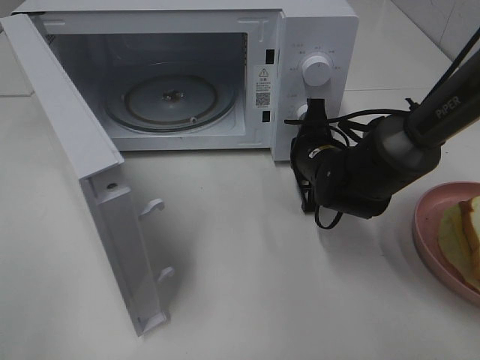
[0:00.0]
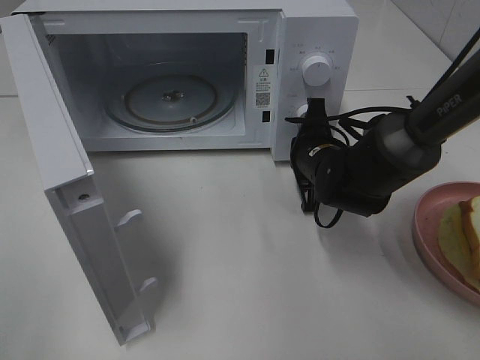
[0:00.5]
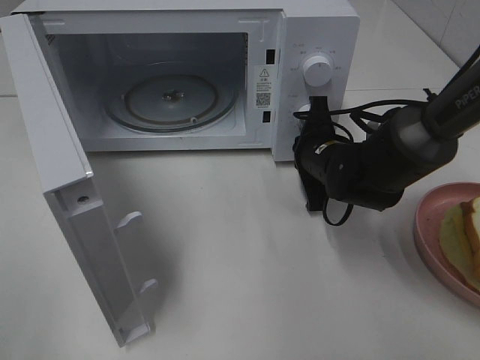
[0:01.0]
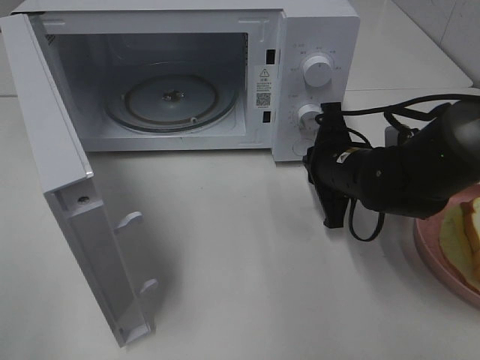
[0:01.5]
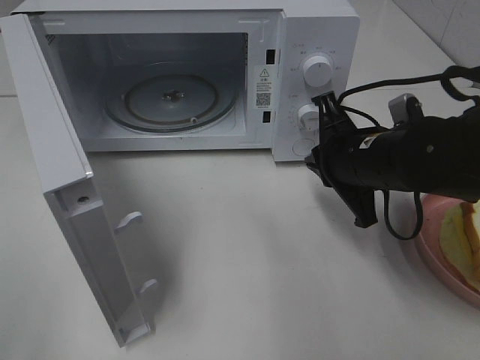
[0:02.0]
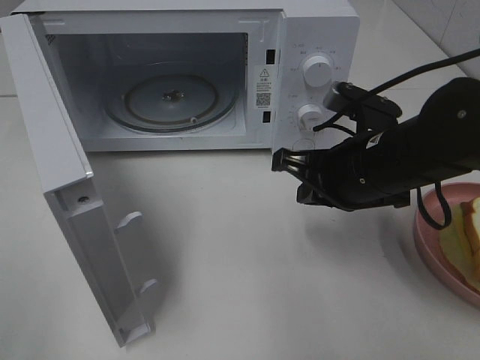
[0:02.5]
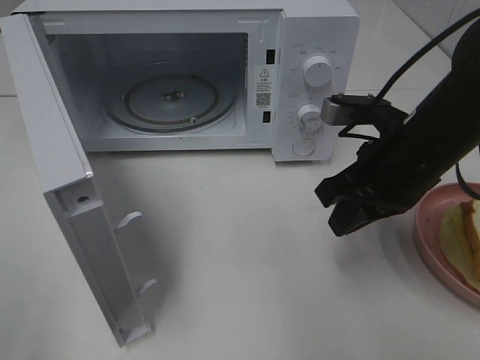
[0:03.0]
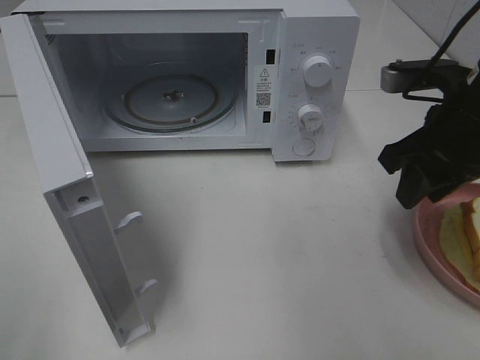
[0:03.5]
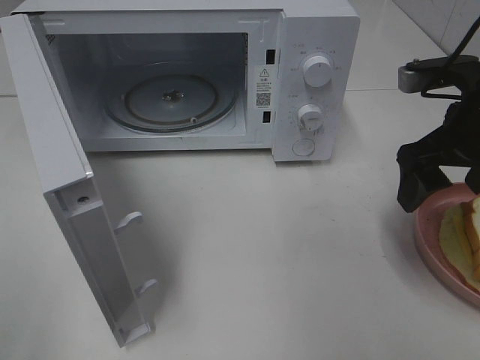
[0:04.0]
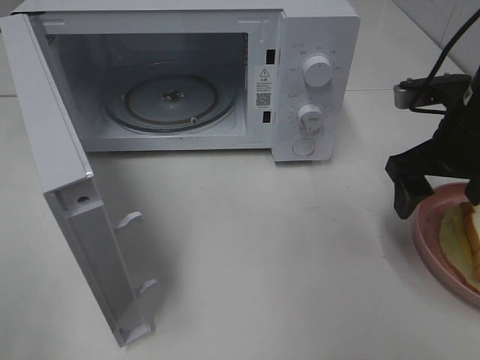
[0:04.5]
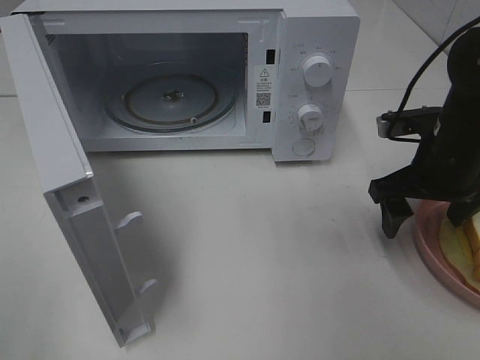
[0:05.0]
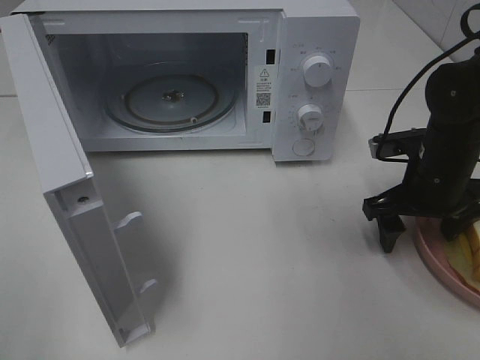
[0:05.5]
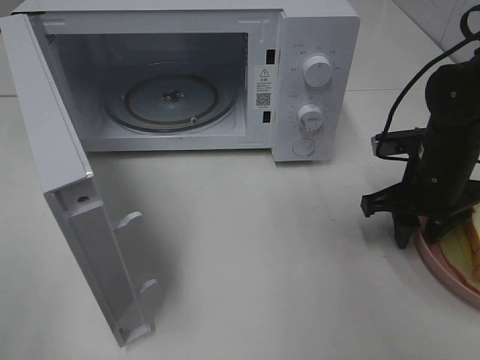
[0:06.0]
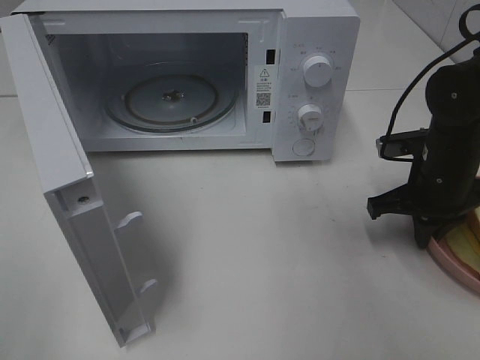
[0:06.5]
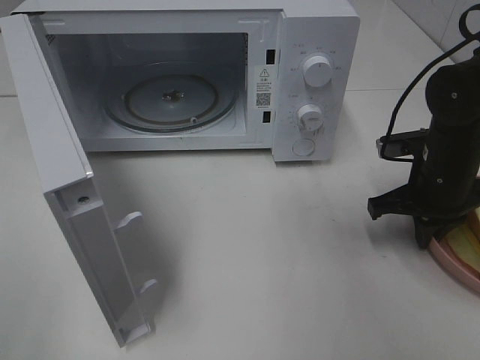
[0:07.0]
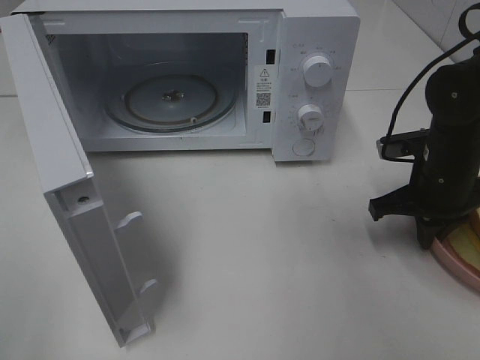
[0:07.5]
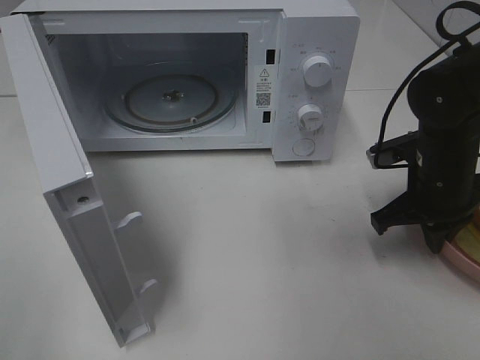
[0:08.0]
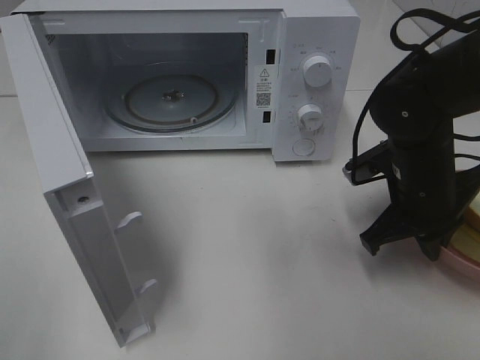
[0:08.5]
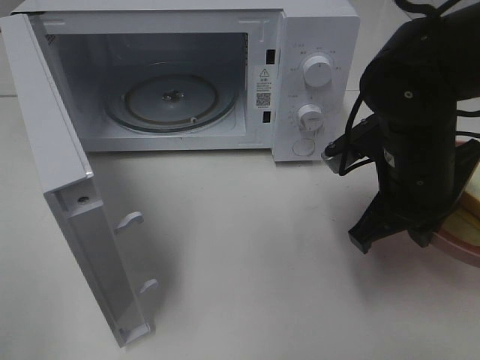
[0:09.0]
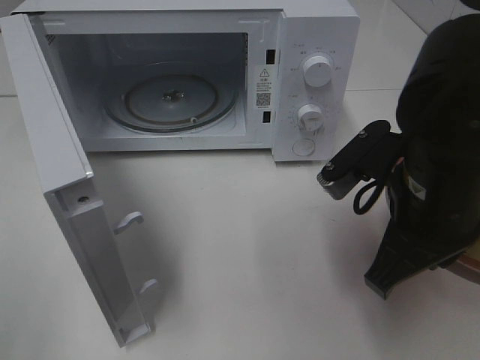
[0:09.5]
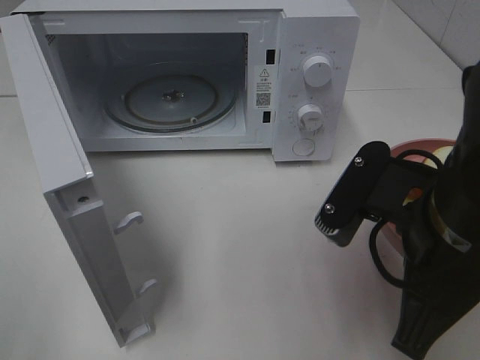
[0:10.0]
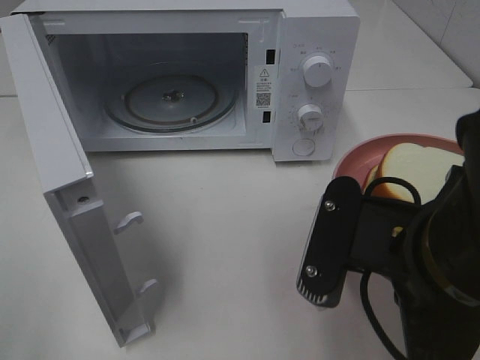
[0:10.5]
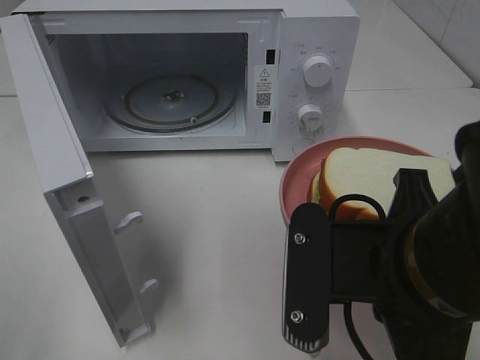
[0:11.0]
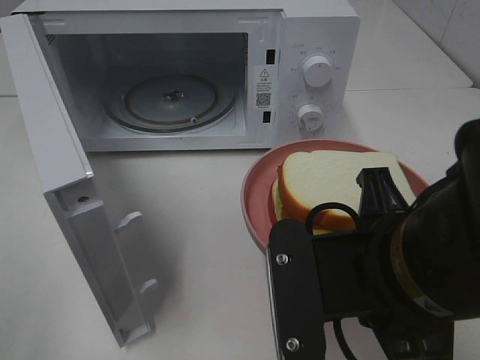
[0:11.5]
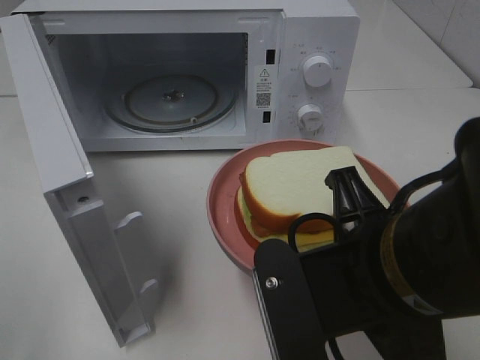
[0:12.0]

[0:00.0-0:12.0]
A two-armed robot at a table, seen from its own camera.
Task of the whole recording: Heat Sandwich.
Step, 0:02.0 to 0:06.0: Right hand: grab the plate with the sandwich.
0:00.0 to 0:02.0: The right gripper travels backward and upward by approximately 10 cm.
0:02.0 to 0:04.0: The right gripper shifts some 10 cm to the right and upward, and opens its fingers.
0:04.0 to 0:06.0: The right gripper travels downward by roughly 10 cm, and closes up.
0:06.0 to 0:08.0: The right gripper closes up.
0:08.0 to 0:10.0: The right gripper heads backward, upward and to the left, covering roughly 20 cm.
0:10.0 to 0:12.0: The right gripper shifts by roughly 5 cm.

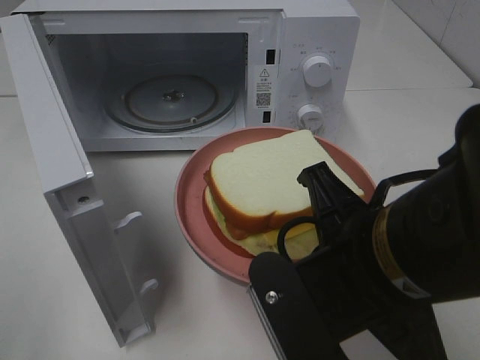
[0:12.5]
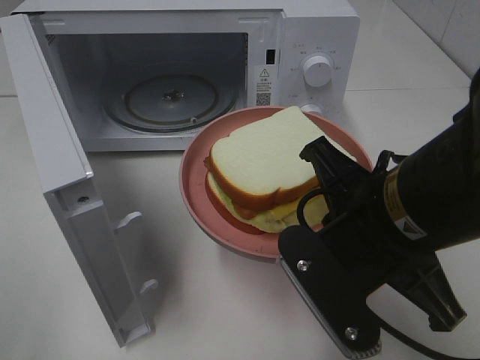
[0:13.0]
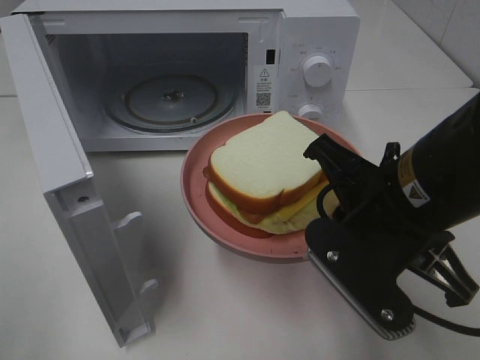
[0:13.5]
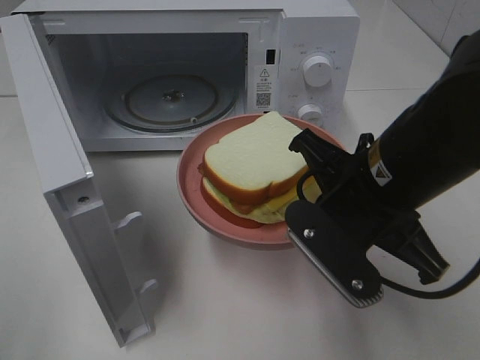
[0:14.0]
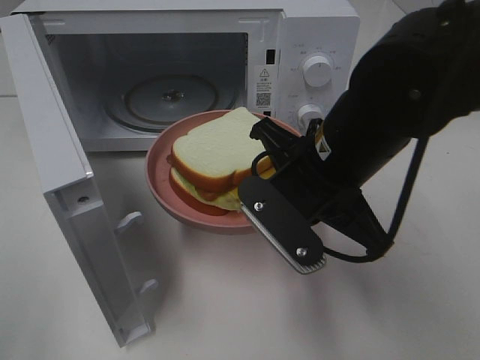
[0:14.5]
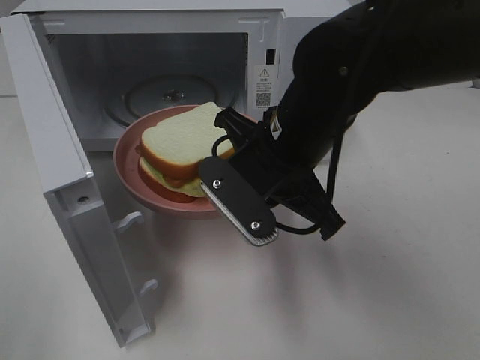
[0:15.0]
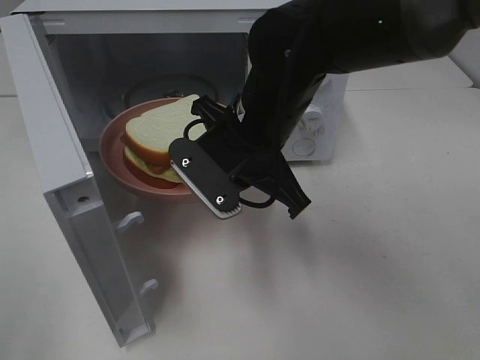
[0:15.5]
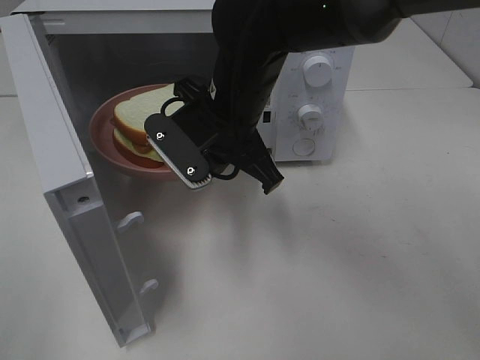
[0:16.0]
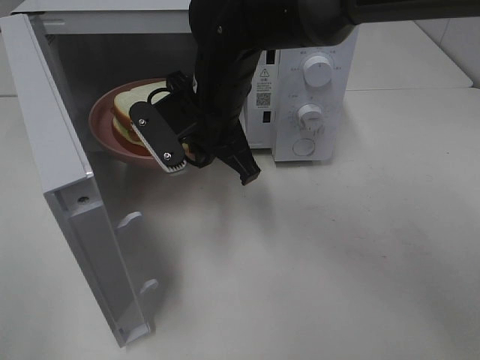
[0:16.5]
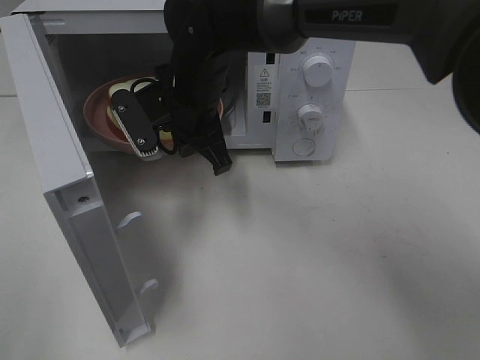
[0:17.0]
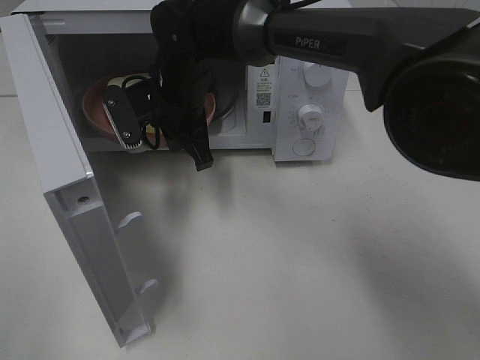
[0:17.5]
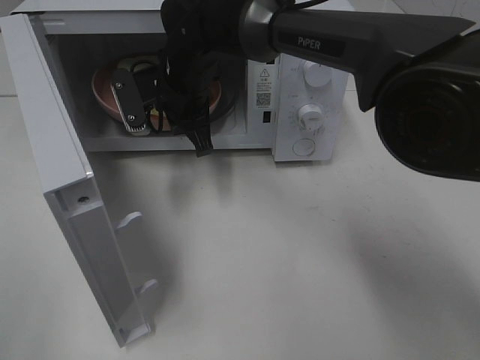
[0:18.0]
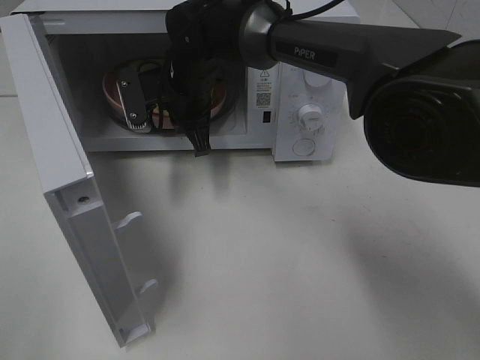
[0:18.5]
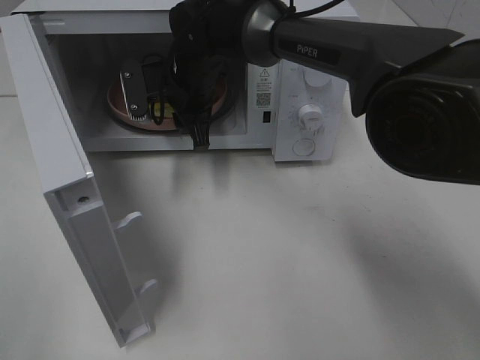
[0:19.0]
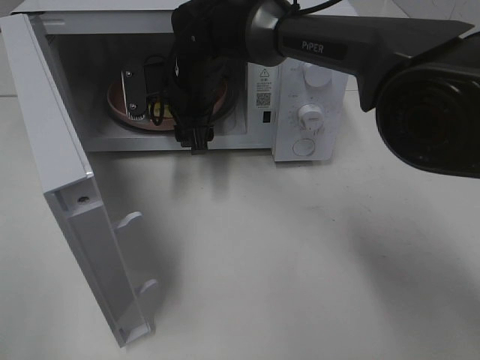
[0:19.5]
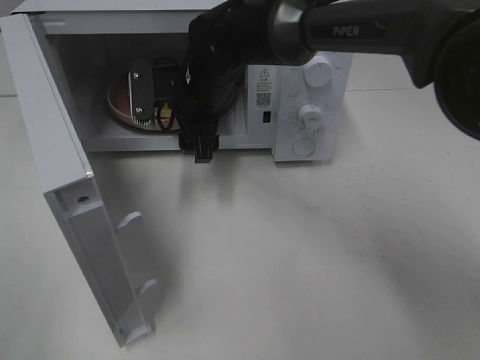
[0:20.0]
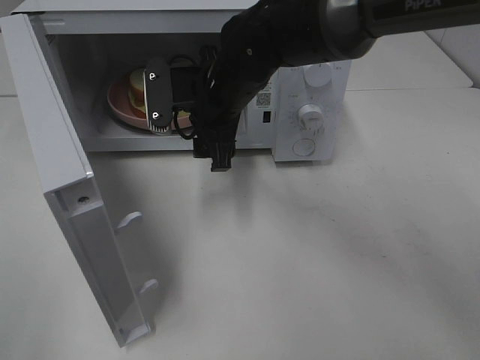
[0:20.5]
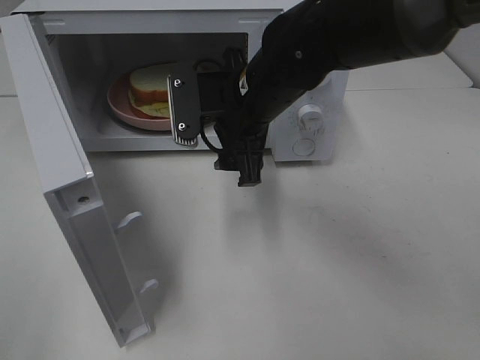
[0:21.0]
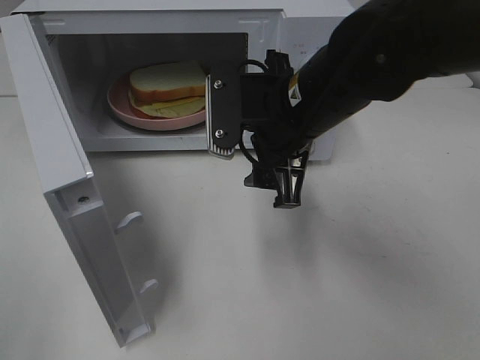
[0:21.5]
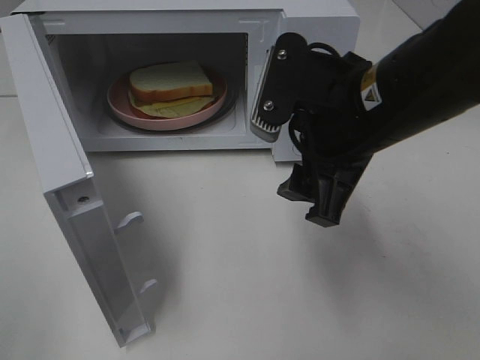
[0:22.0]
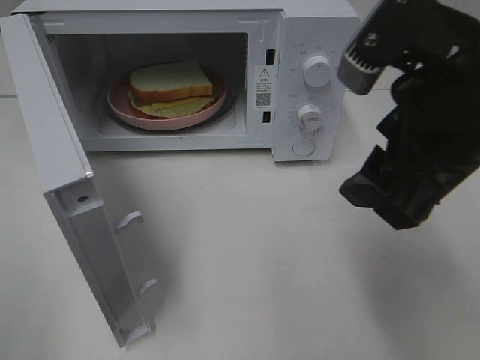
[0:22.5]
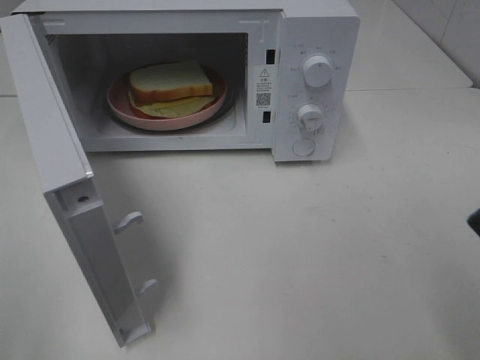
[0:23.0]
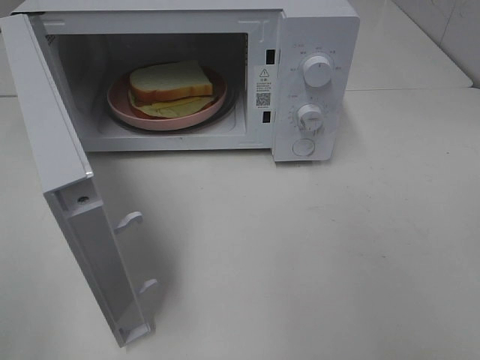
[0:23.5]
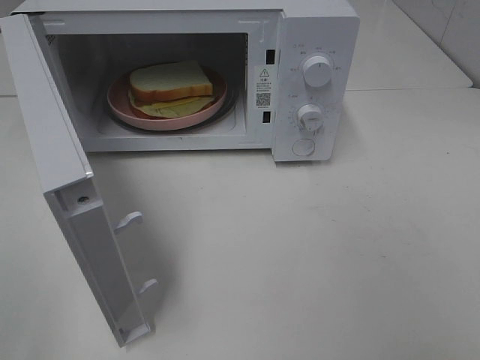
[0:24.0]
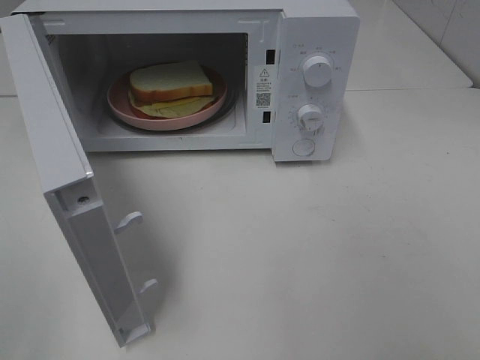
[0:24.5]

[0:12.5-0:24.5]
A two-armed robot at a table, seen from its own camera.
Task of the whole recording: Heat Sandwich.
Step, 0:12.5 to 0:20.5: Right hand: place the plate in the microwave.
0:12.5 to 0:14.5: The right gripper moves forward, roughly 10 cm.
0:14.5 to 0:16.5: The right gripper is displaced forward and to the left by roughly 15 cm.
0:16.5 to 0:18.5: The right gripper is displaced forward by approximately 10 cm.
0:18.5 to 0:20.5: The right gripper shifts about 5 cm backward, and opens.
0:20.5 to 0:22.5: The right gripper goes about 25 cm backward, to the right and upward.
0:22.5 to 0:24.5: The right gripper is displaced backward and to the right by roughly 25 cm.

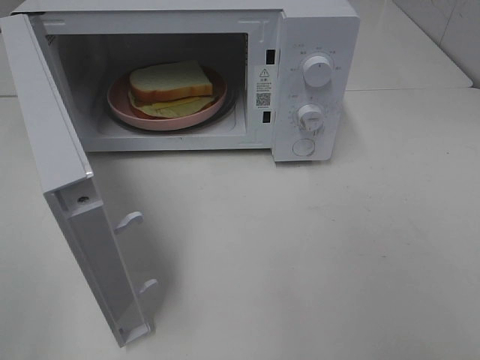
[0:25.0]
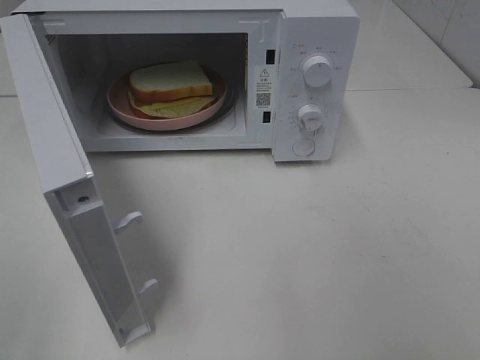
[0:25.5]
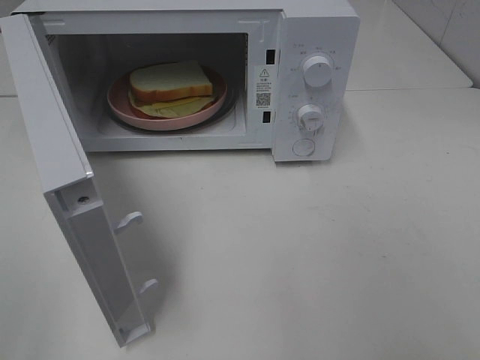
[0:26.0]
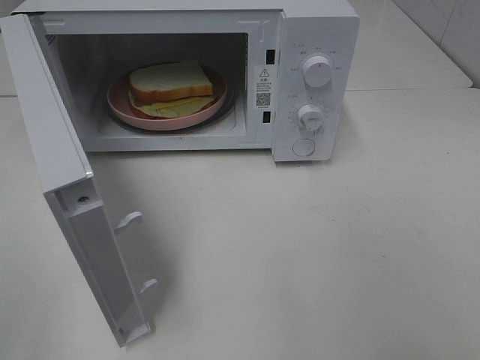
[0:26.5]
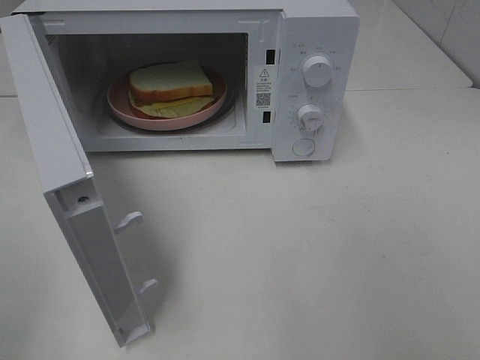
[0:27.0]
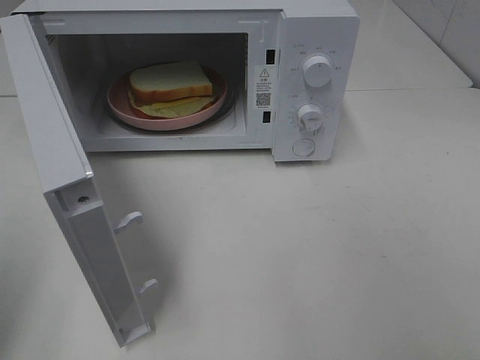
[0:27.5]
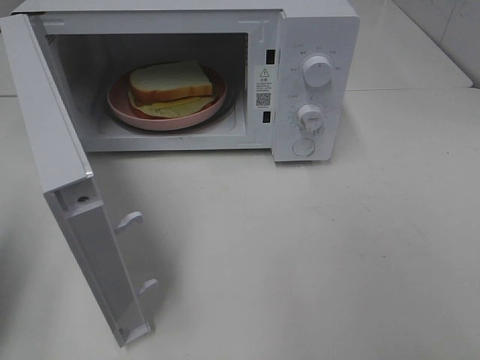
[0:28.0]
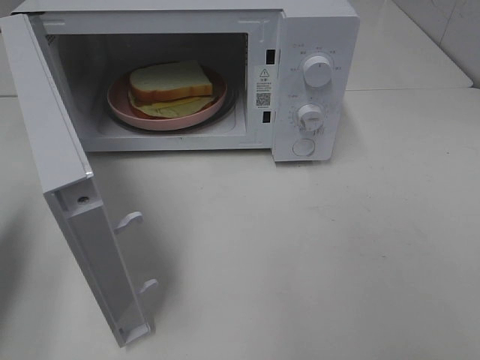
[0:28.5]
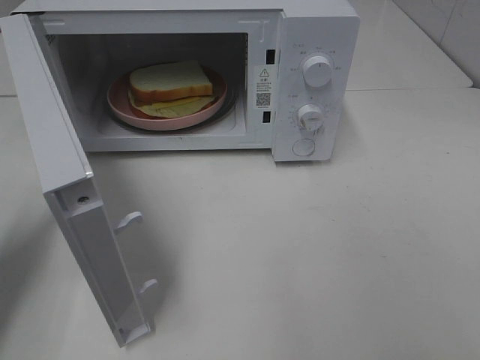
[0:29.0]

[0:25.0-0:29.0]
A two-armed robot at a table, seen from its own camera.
Task of the whole recording: Heat Sandwich.
0:27.0 to 0:29.0: The left gripper travels forward and downward by approximately 25 cm, and closes up.
